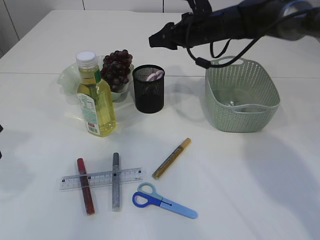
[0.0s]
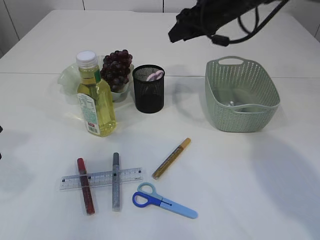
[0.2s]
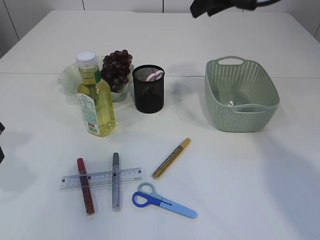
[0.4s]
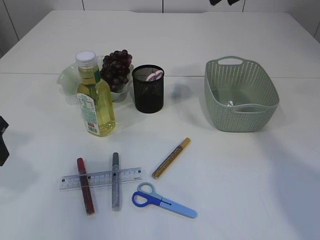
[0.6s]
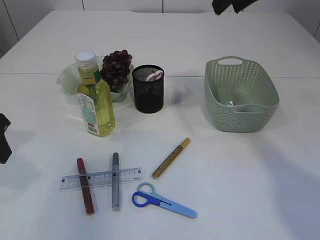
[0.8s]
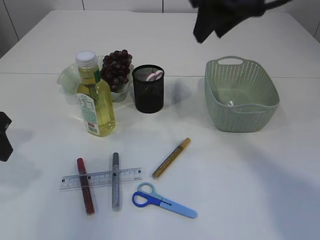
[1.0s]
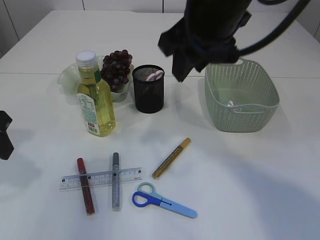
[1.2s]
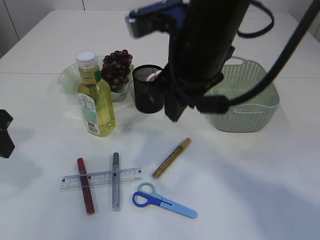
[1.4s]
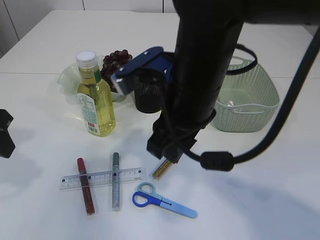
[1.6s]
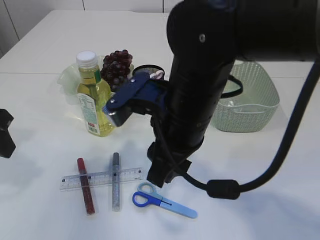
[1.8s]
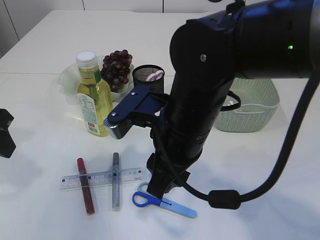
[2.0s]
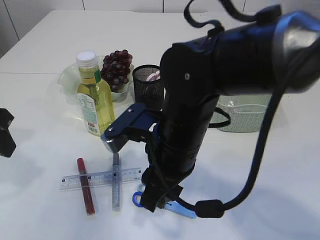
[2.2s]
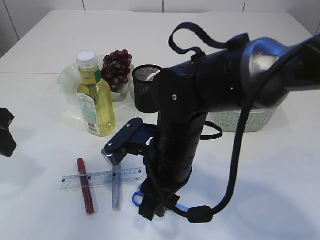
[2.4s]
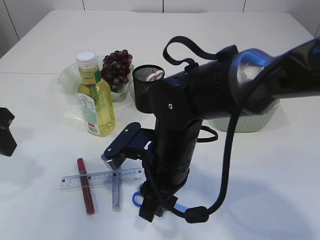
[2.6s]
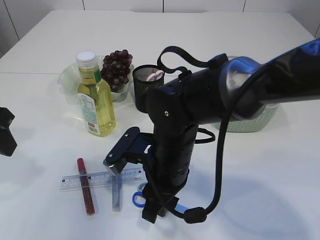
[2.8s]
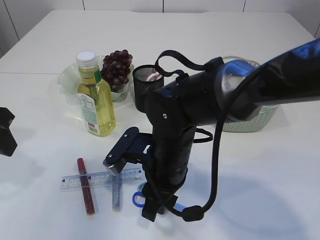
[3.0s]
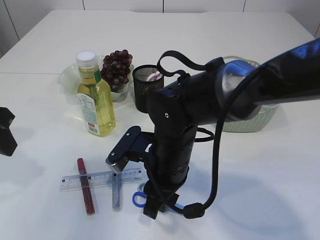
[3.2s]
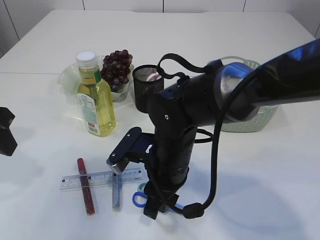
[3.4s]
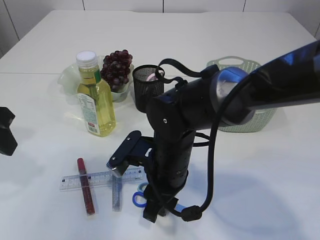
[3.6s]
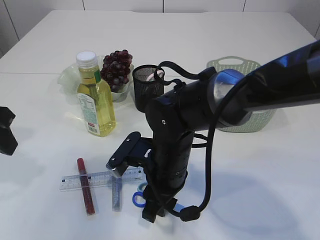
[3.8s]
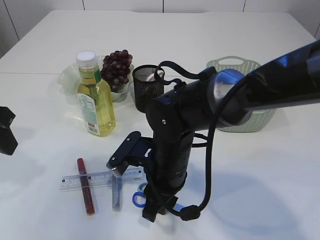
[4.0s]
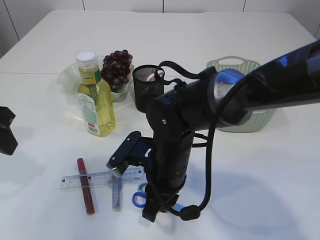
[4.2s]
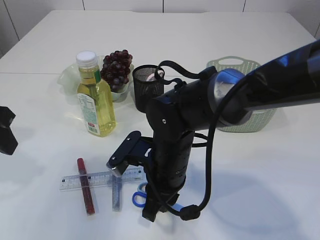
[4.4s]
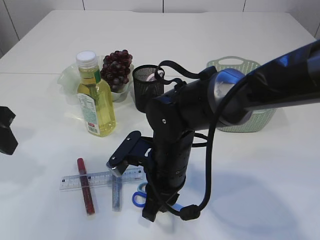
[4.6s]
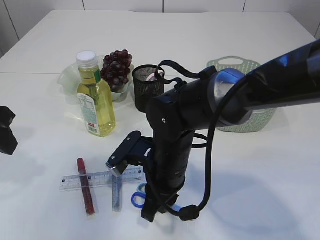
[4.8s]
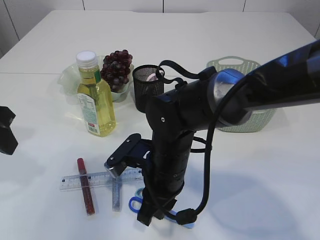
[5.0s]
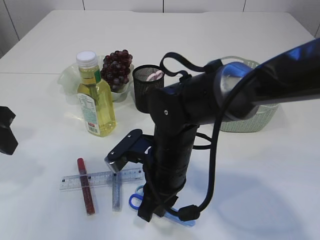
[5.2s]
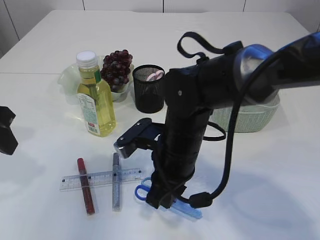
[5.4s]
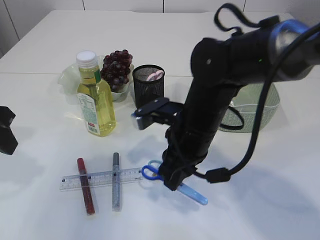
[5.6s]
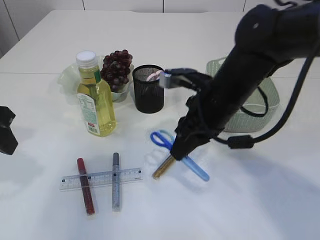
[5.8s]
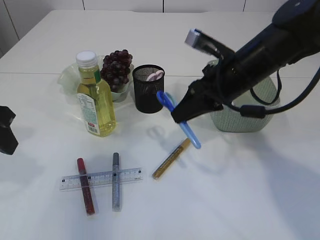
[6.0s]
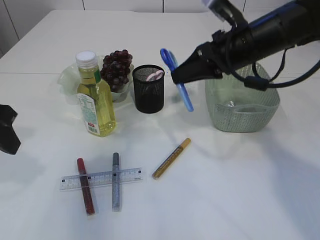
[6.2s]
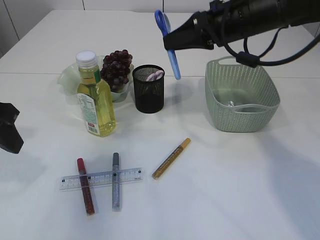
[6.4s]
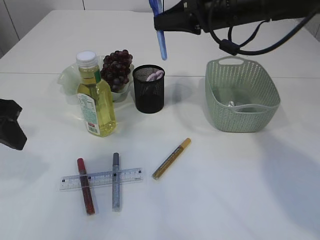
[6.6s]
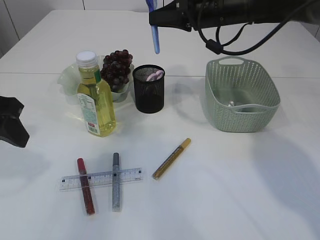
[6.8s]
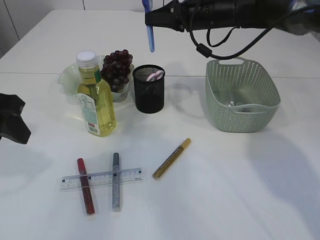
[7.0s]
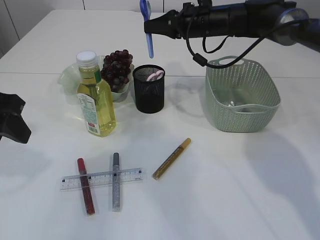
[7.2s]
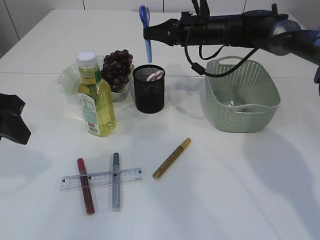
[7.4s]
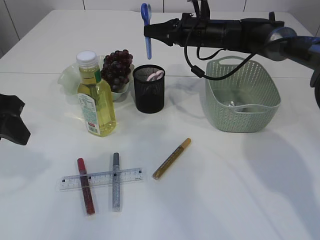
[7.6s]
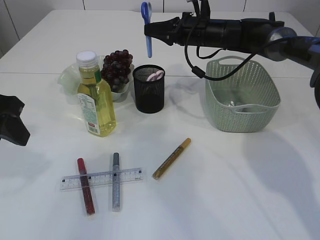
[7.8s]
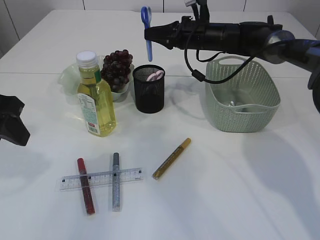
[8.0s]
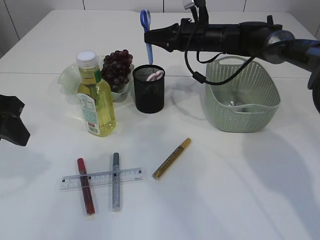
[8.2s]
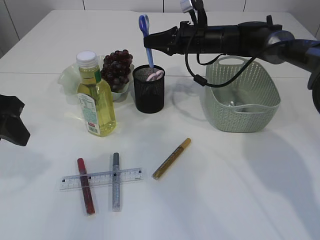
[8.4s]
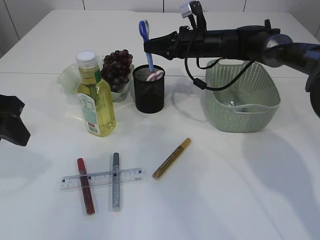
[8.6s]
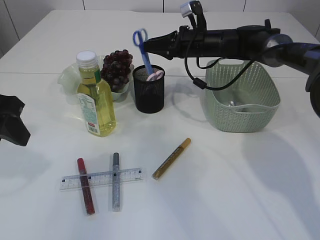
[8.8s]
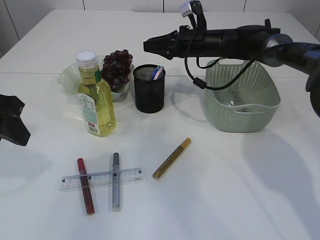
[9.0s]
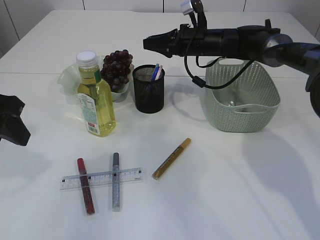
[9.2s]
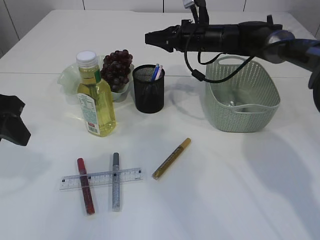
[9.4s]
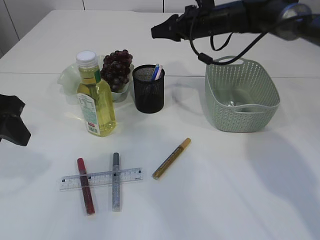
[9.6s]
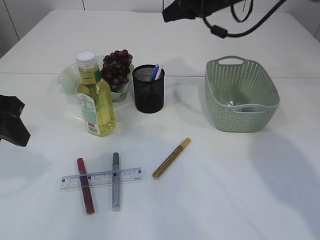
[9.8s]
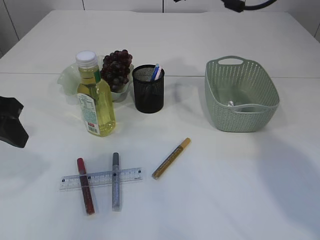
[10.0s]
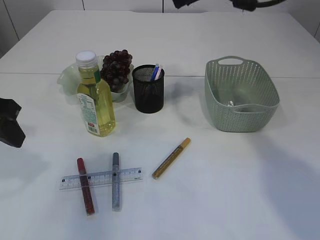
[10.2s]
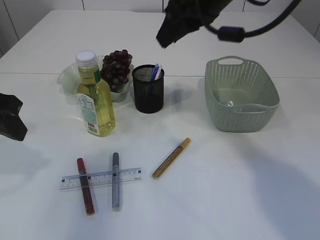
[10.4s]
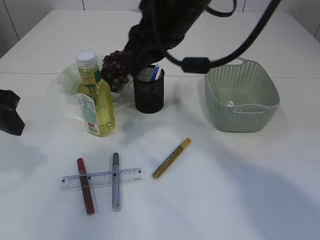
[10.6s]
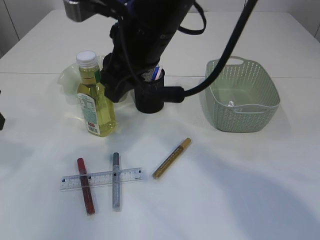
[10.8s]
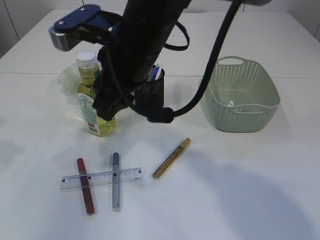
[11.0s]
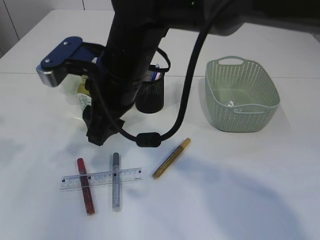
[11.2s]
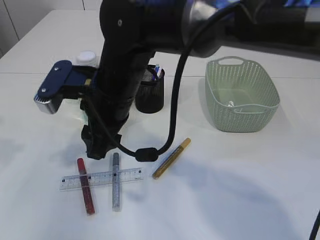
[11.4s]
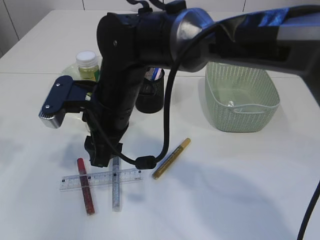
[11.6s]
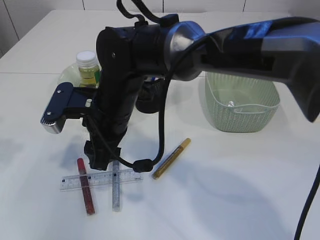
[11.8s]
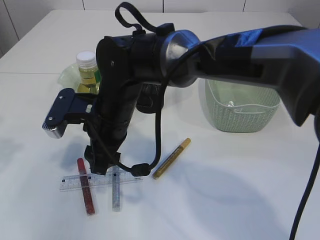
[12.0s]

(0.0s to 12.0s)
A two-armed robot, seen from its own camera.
Step, 0.2s - 5.4s: pick up the blue scissors.
Step, 5.6s - 9.4s: Place the blue scissors into the pen holder.
0.0s - 1.6s: The right gripper shifts approximately 25 cm backward.
1.6s - 3.0s: The right gripper travels downward by some 15 cm.
3.0s - 4.4s: There are only small adjustments of the grippers.
4.4s - 6.0s: The right gripper is displaced to the right, upward and forward by some 15 cm.
6.0s - 7.6s: The right gripper shifts about 20 cm forward.
7.6s - 9.0s: There are only small adjustments of the grippers.
9.0s - 10.4s: The right gripper moves upward and backward, some 25 cm.
10.4s - 12.0s: The left gripper shifts approximately 5 cm to the left; the right gripper travels downward and to the left by roughly 25 cm.

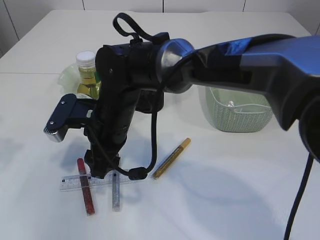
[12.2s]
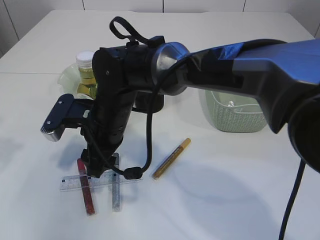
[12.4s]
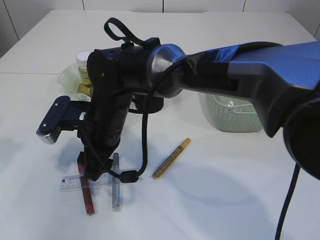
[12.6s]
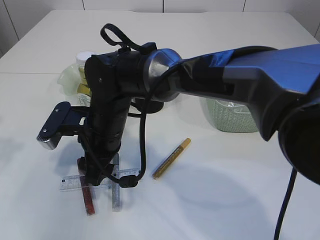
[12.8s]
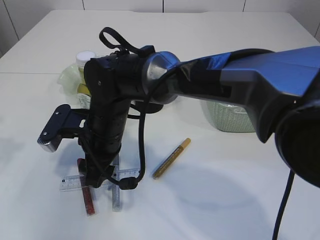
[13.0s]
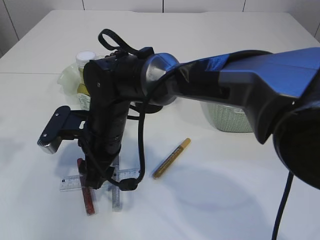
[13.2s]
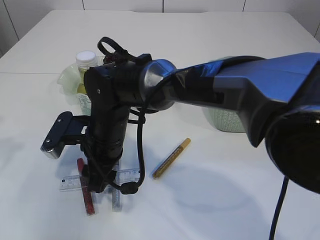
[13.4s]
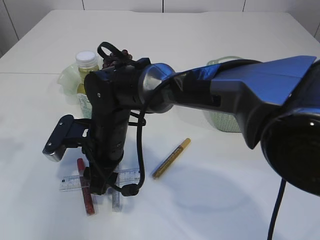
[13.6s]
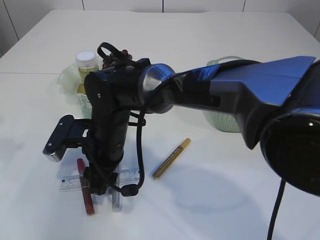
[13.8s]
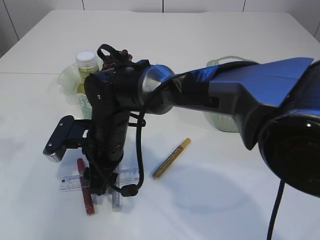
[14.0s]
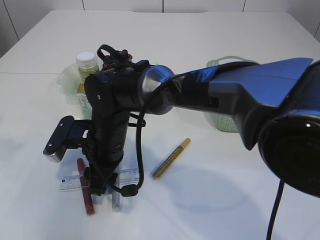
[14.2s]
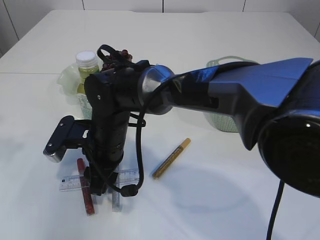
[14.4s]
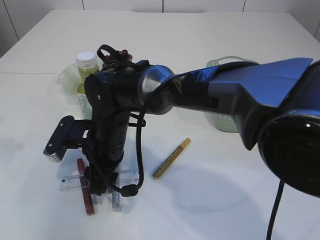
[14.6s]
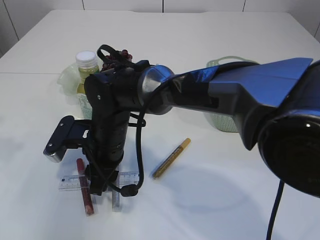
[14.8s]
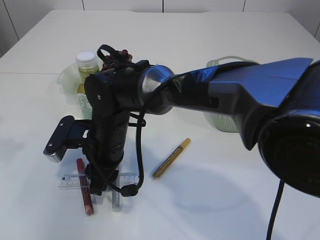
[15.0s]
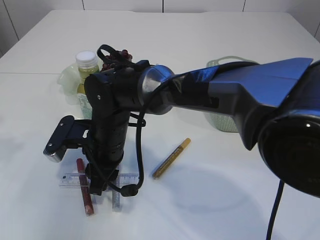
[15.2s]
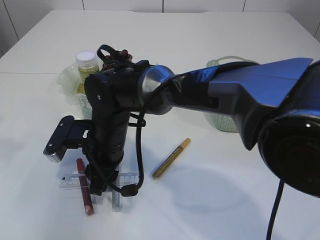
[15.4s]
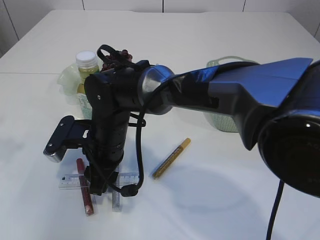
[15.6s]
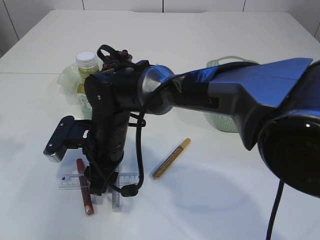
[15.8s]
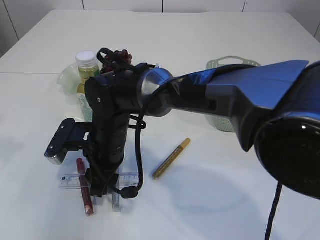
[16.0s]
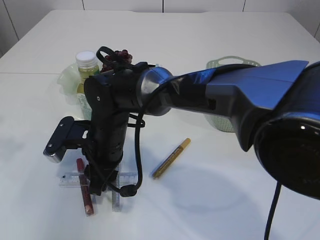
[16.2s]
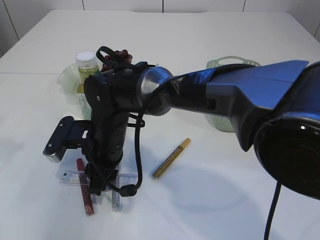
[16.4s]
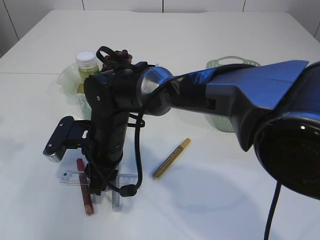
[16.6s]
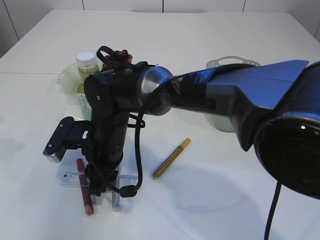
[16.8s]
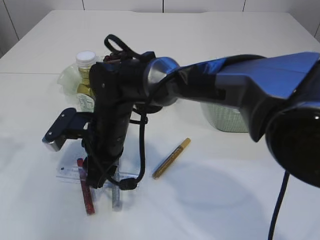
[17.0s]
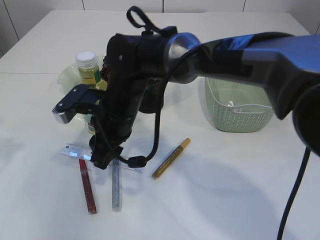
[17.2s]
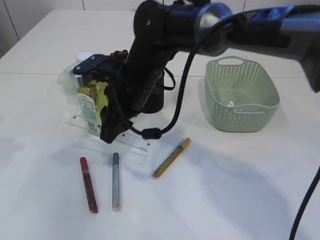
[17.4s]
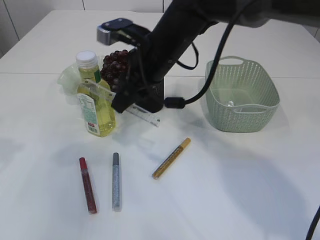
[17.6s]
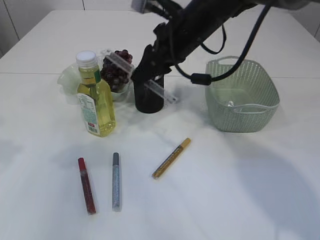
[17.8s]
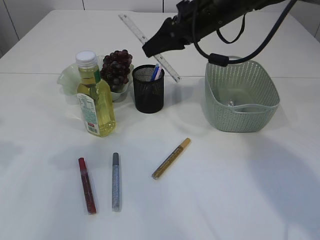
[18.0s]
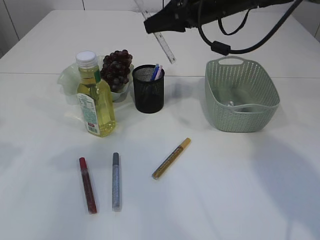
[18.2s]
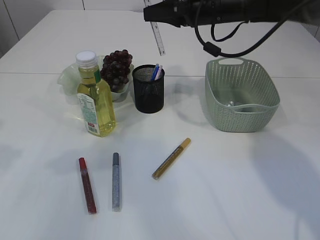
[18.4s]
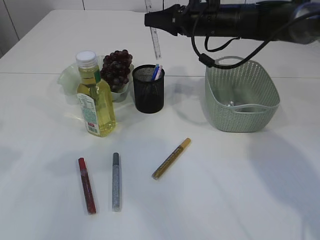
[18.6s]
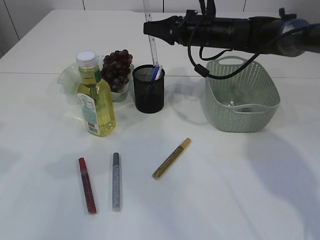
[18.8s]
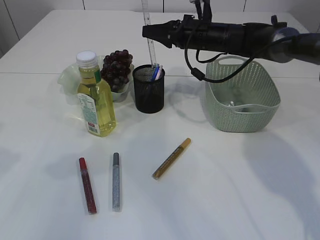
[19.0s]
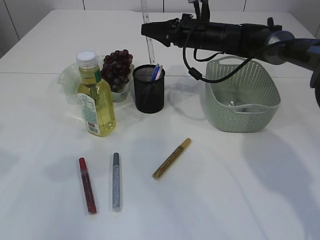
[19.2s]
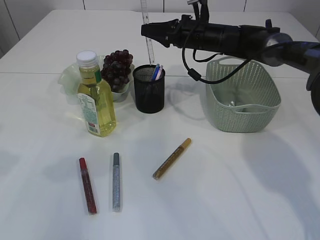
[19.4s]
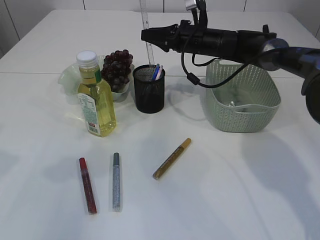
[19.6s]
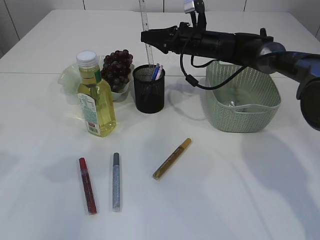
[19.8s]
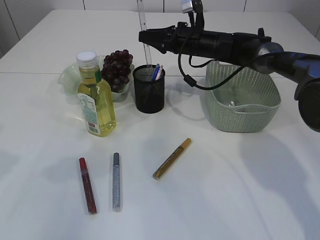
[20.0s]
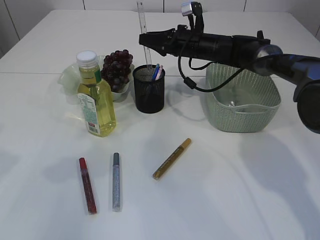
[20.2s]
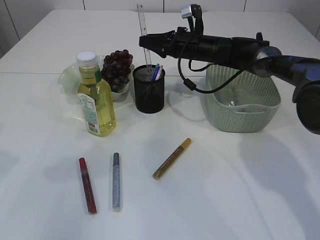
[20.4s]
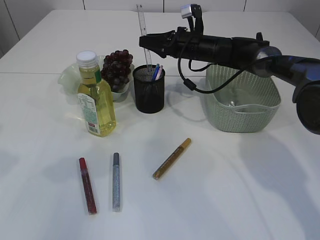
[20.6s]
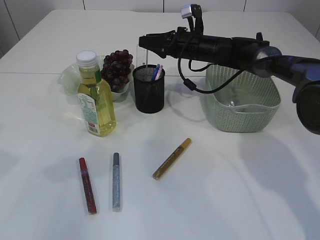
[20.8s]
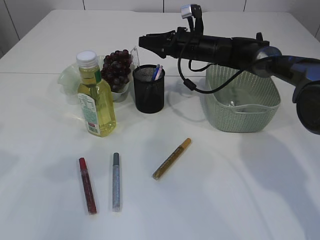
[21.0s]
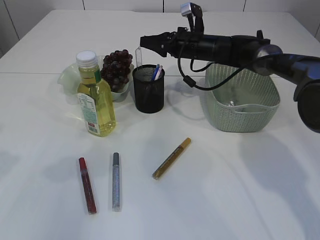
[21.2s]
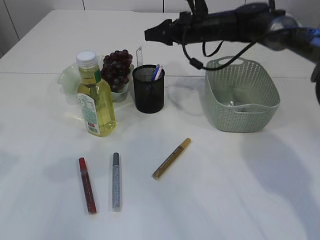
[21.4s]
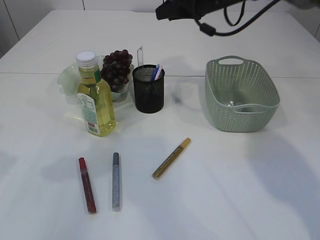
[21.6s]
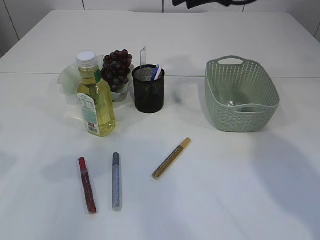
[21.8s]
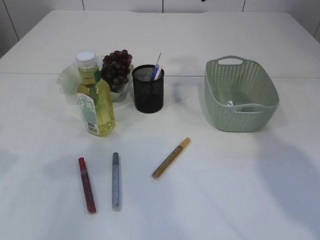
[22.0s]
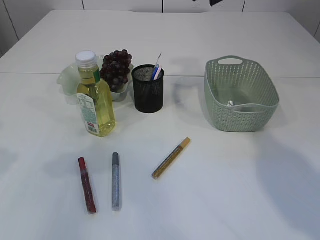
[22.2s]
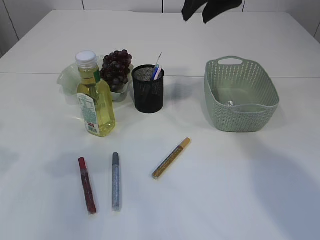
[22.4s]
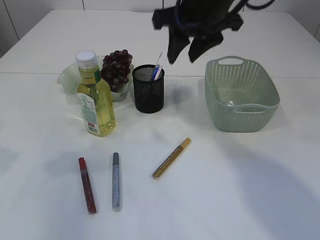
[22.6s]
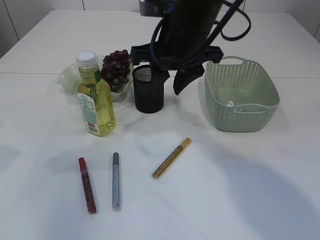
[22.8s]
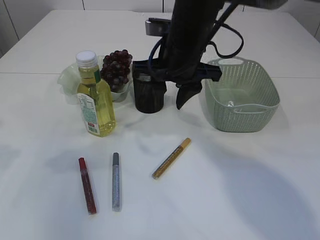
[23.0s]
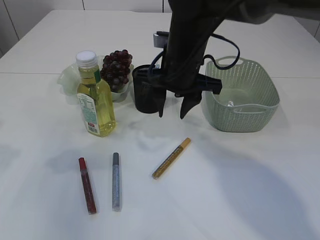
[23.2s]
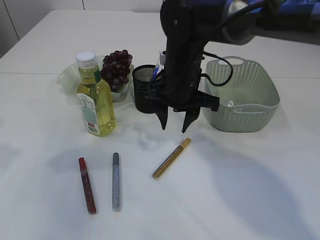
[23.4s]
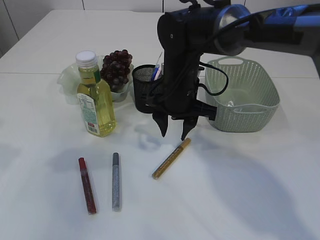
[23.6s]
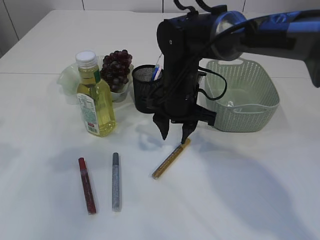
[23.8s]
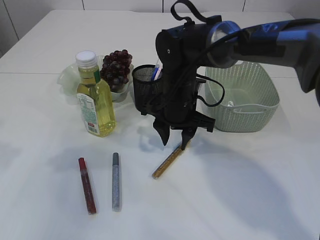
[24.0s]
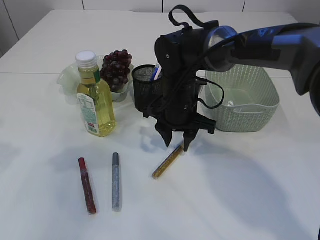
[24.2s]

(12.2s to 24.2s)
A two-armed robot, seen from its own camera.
Step, 12.2s - 17.4s: pick up the ruler.
Step, 17.6s - 21.6s: Place the ruler into the pen holder.
13.8s - 16.6s: Both grippers stay put.
16.6s - 18.2s: The right gripper heads to the right, upward and forward, covering approximately 30 cm.
18.2s - 19.8s: The right gripper shifts some 15 cm downward and forward.
19.8s - 21.2s: The grippers stay close to where they were, moving slightly.
21.2s - 22.6s: The right gripper heads upward and backward, covering approximately 25 cm.
22.6s - 24.2s: The right gripper is displaced downward by some 20 cm.
